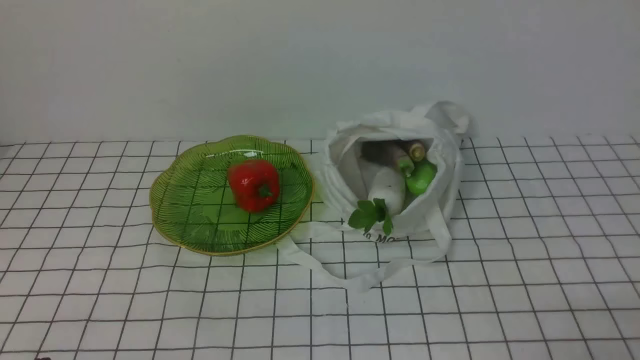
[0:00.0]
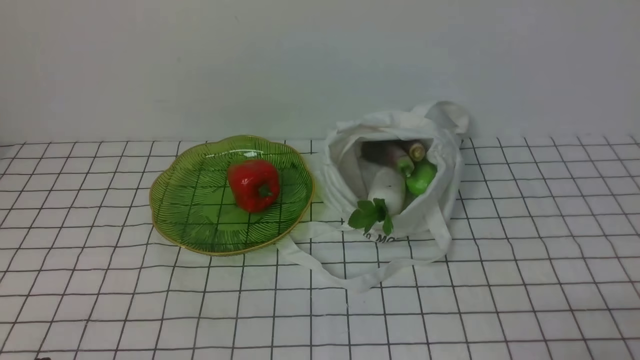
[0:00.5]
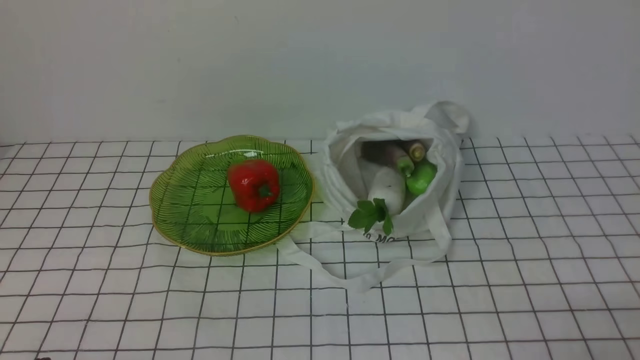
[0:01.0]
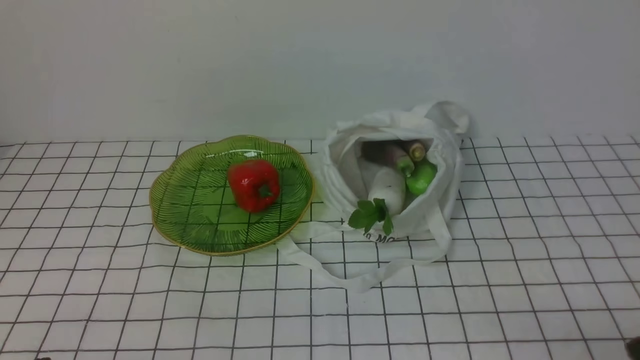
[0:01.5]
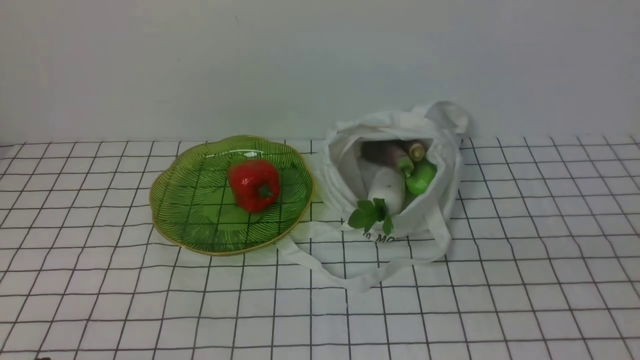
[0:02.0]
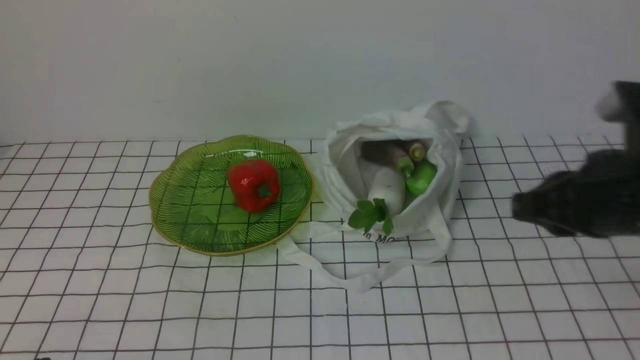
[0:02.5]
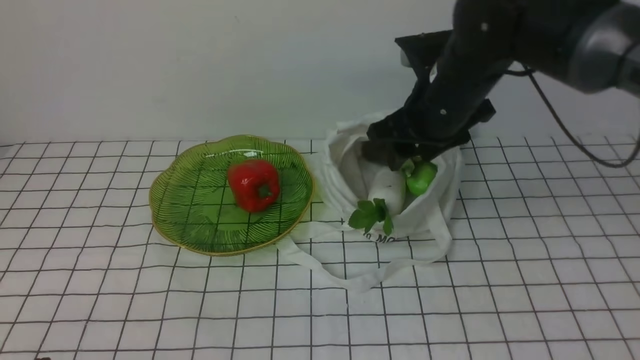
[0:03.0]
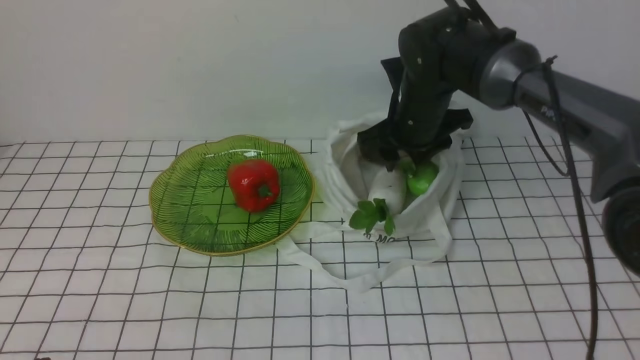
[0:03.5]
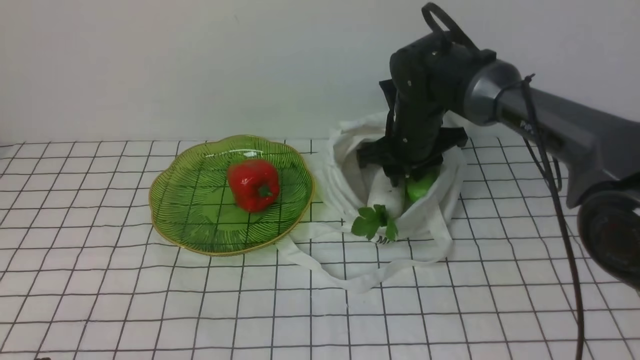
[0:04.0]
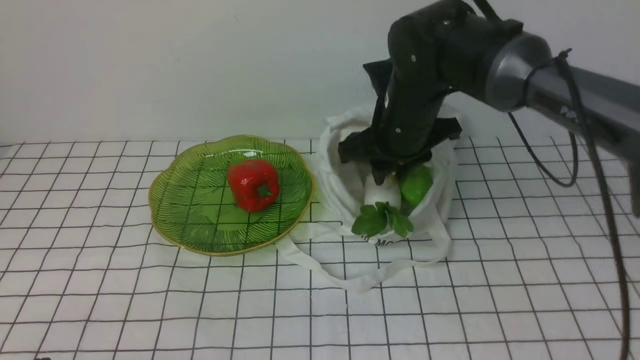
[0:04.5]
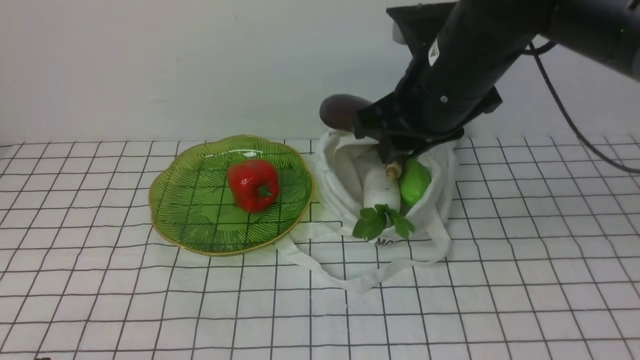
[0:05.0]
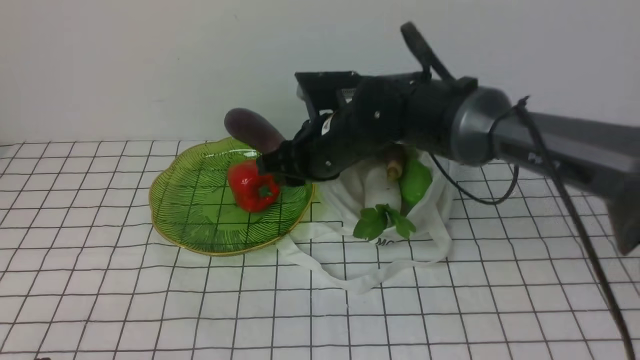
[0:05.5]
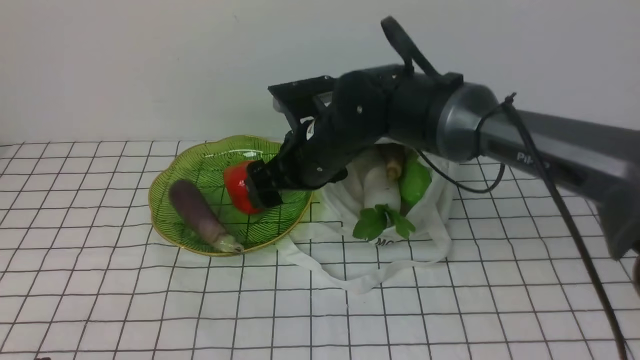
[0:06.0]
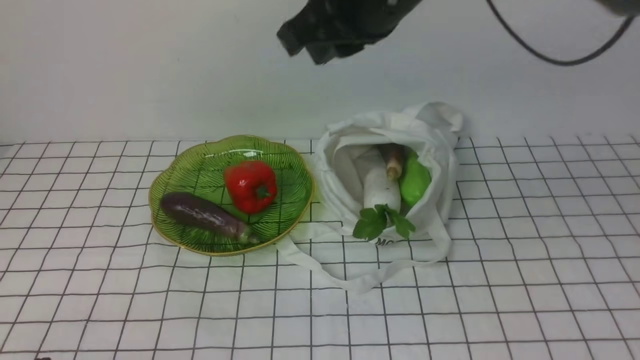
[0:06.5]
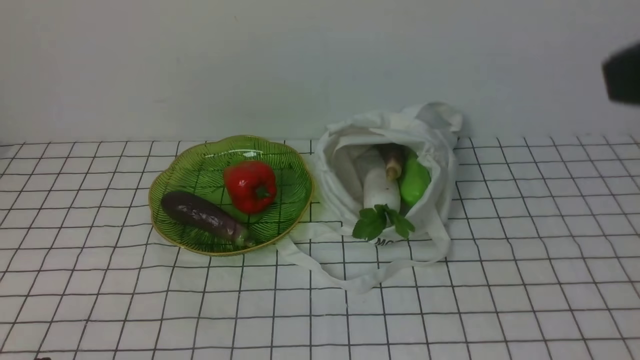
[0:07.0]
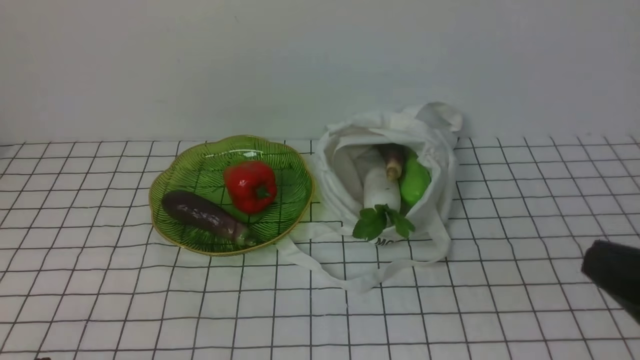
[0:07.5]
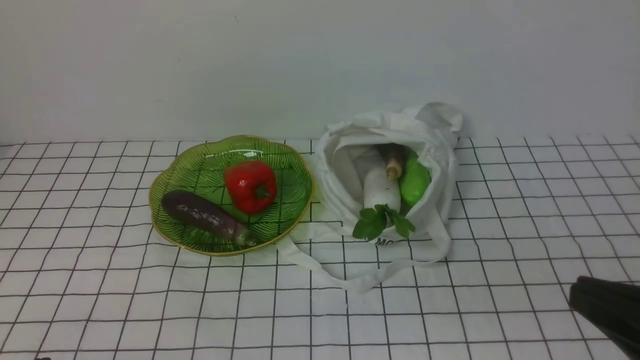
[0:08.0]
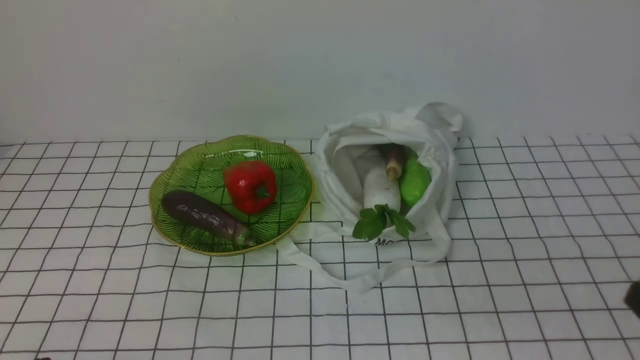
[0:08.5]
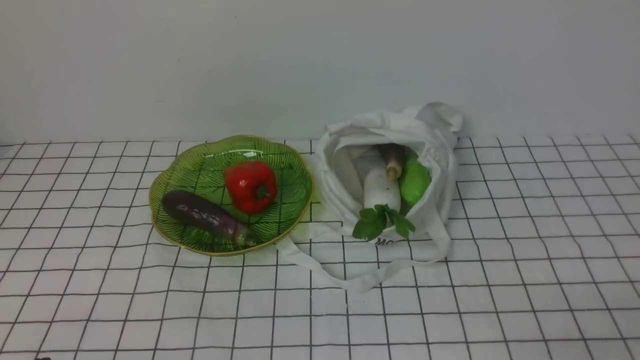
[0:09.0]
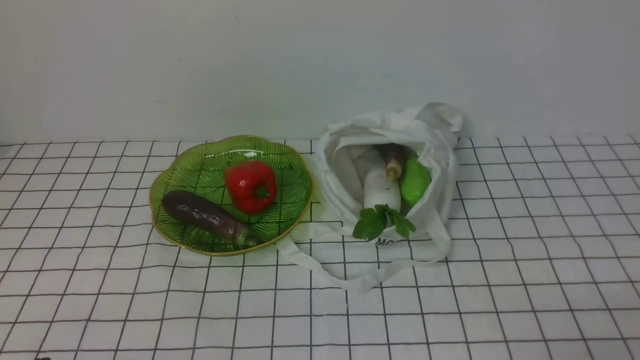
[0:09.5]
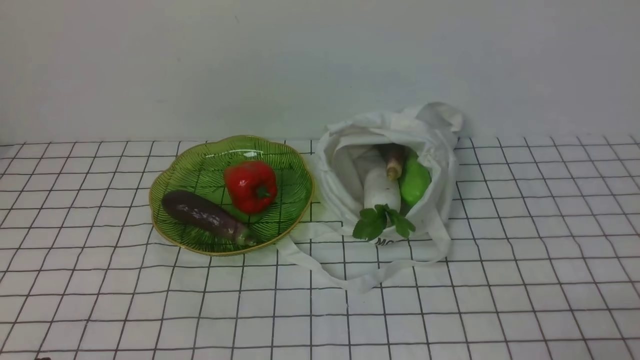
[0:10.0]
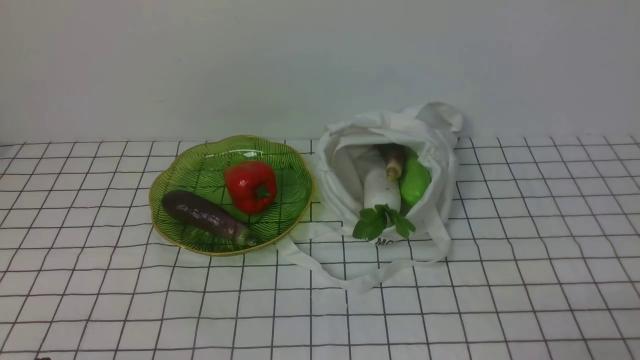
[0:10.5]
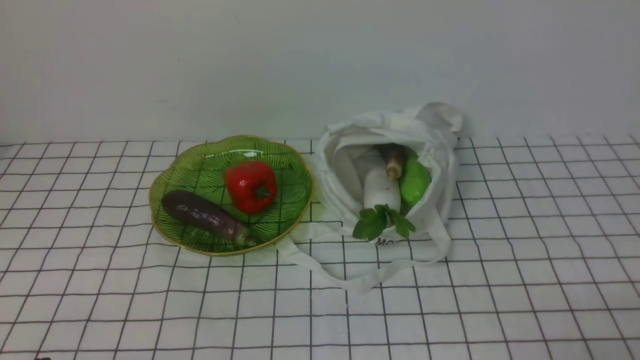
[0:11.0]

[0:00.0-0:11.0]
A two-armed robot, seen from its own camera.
Task of the whole recording: take vegetables from bag on white checkered tablecloth place on plate.
Step, 0:00.0 to 0:04.0: Grasp the eggplant with right gripper.
Step, 0:04.5 to 0:06.0: Place the eggplant on the plate with right gripper.
0:02.0 to 0:03.5: The right gripper moves forward and to the left, roughly 40 cm, and opens.
0:03.5 to 0:05.5: The right gripper travels to the left and backward by roughly 10 cm, and reaches approximately 10 cm upward, then returns.
0:05.5 to 0:07.5: The right gripper shifts about 40 cm backward and to the right, and closes its fingers.
0:07.5 to 0:09.0: The right gripper heads downward and to the right, covering some 15 cm.

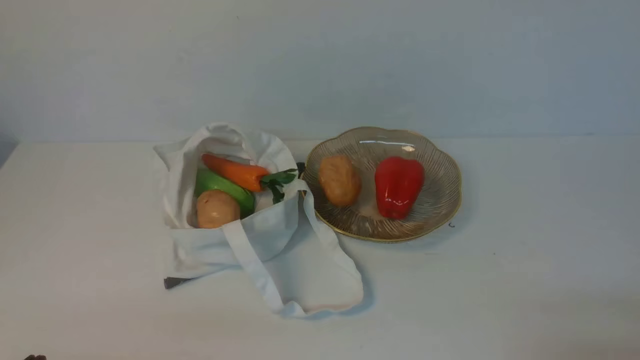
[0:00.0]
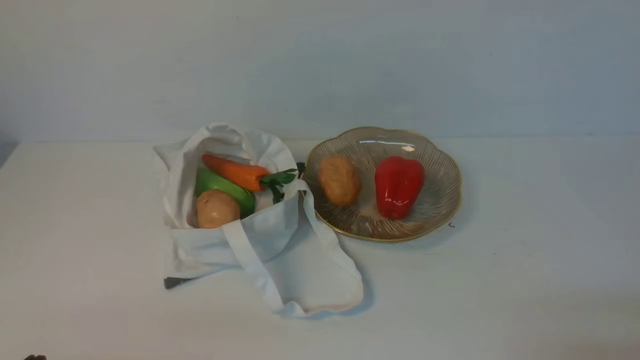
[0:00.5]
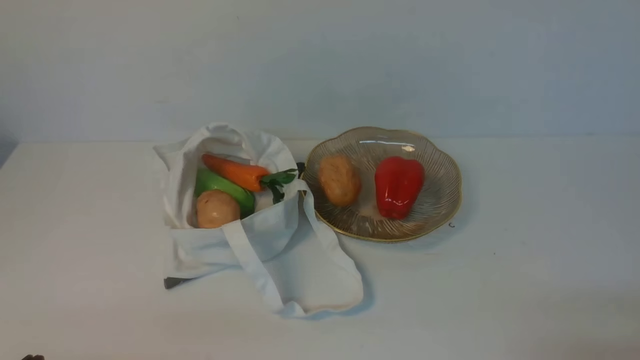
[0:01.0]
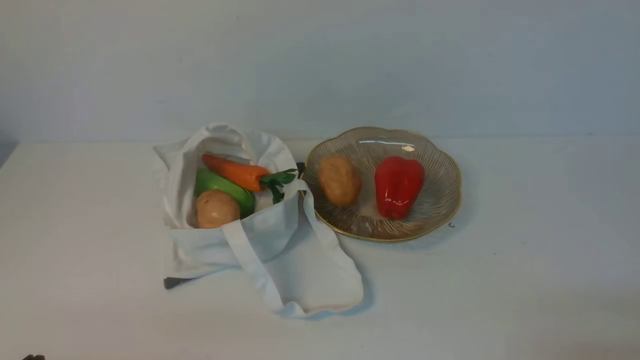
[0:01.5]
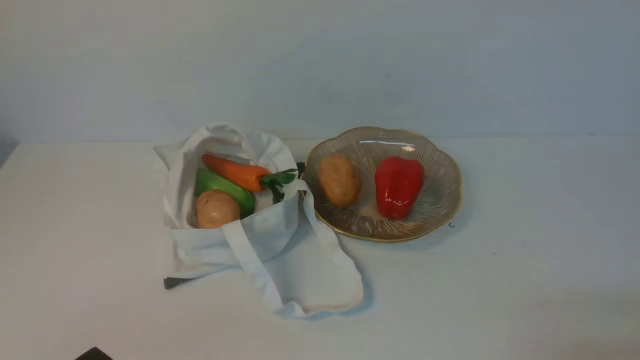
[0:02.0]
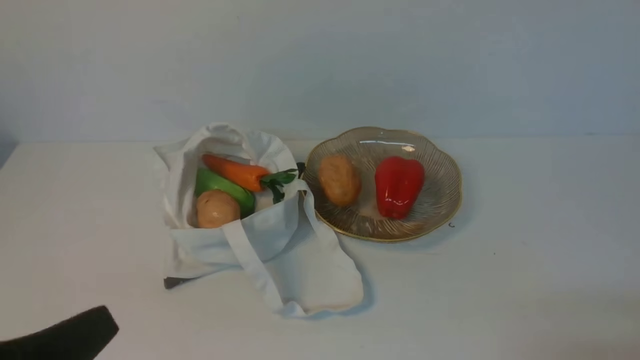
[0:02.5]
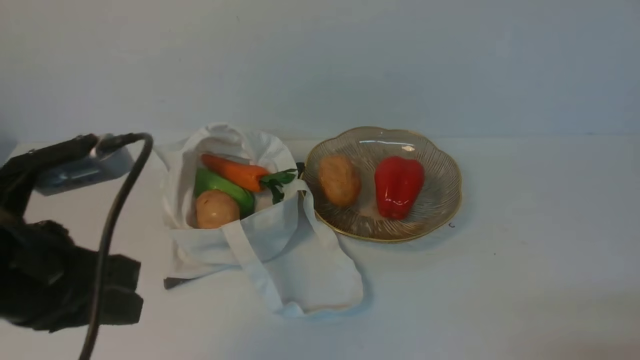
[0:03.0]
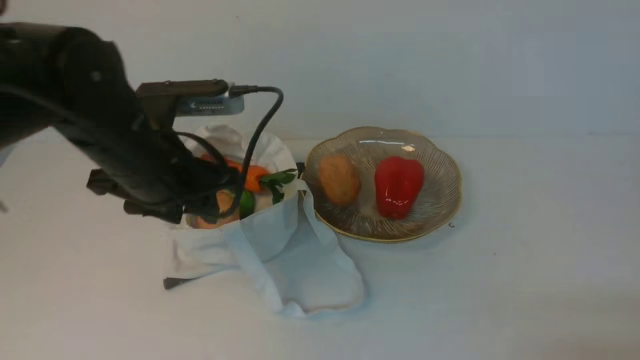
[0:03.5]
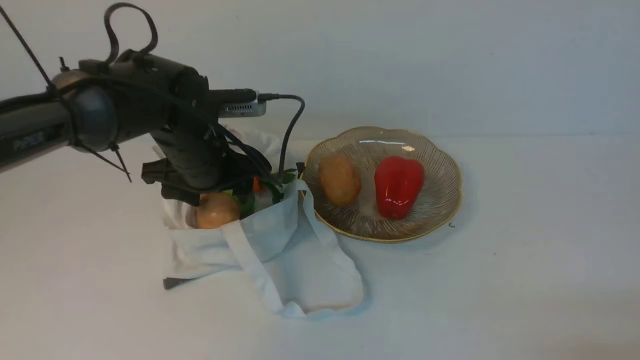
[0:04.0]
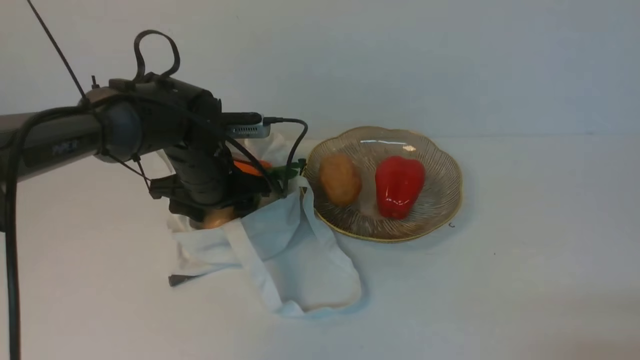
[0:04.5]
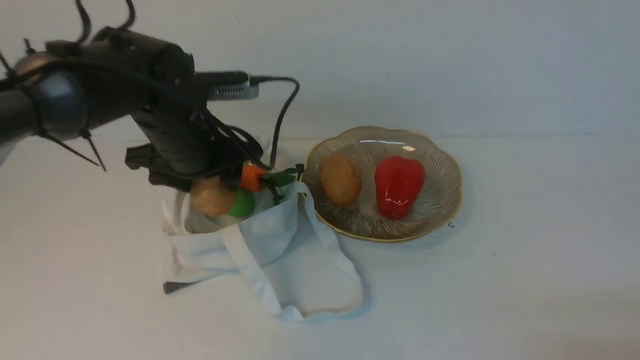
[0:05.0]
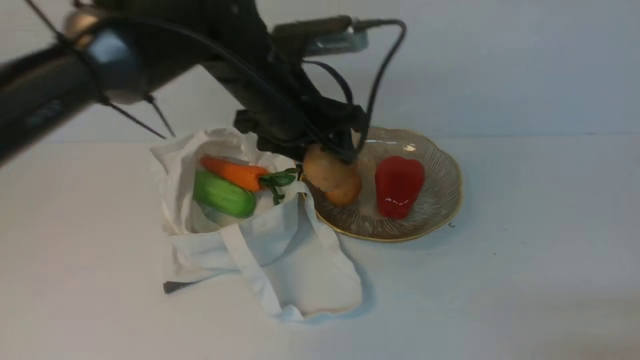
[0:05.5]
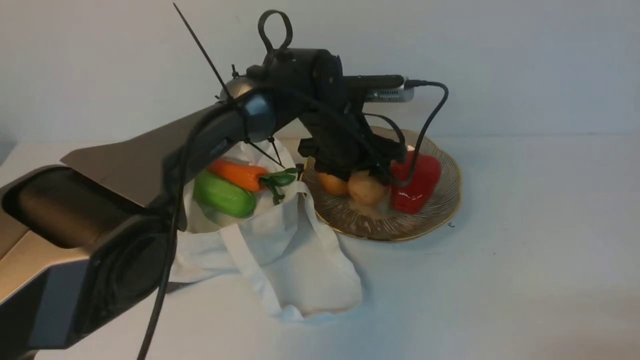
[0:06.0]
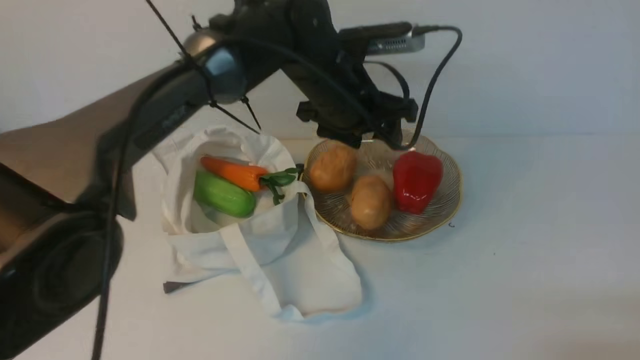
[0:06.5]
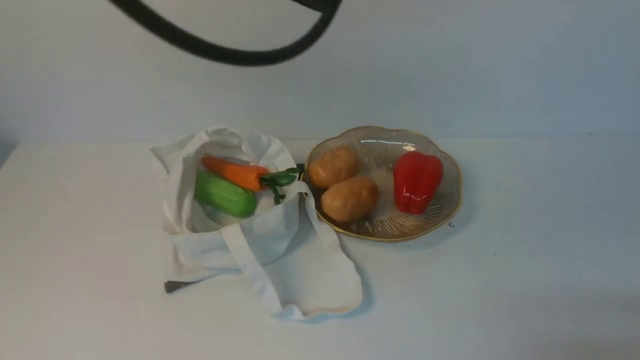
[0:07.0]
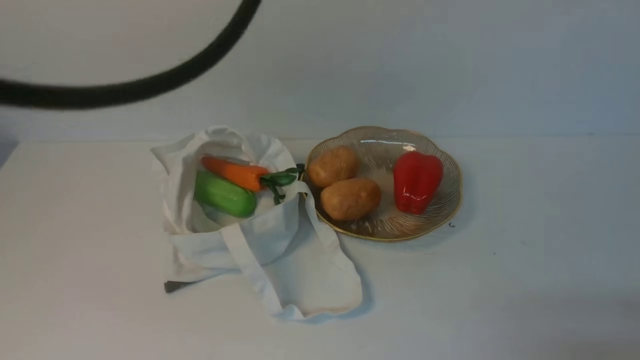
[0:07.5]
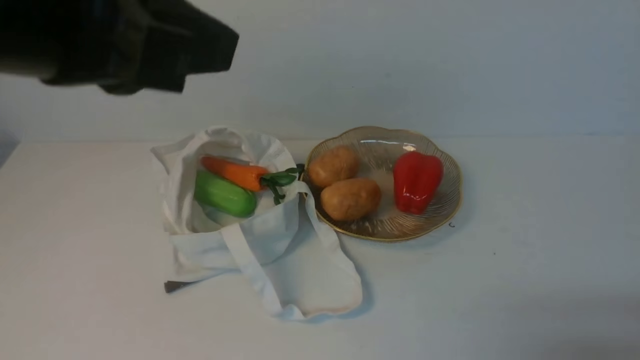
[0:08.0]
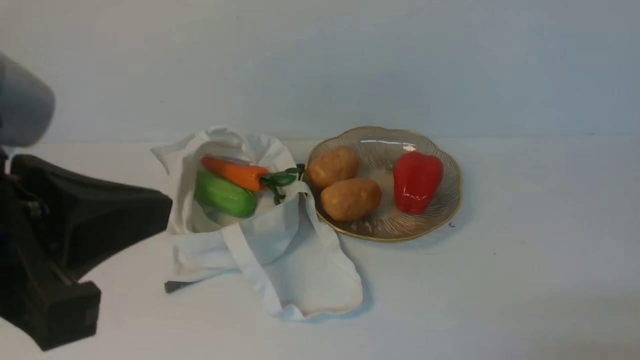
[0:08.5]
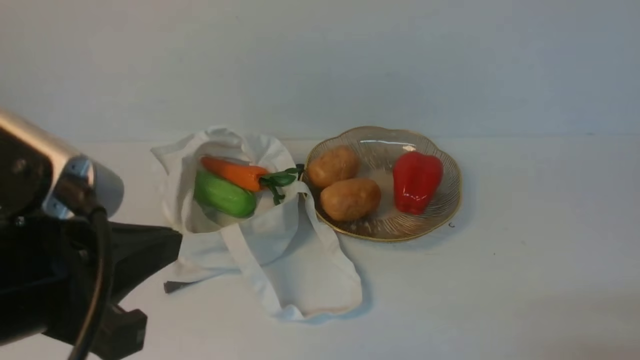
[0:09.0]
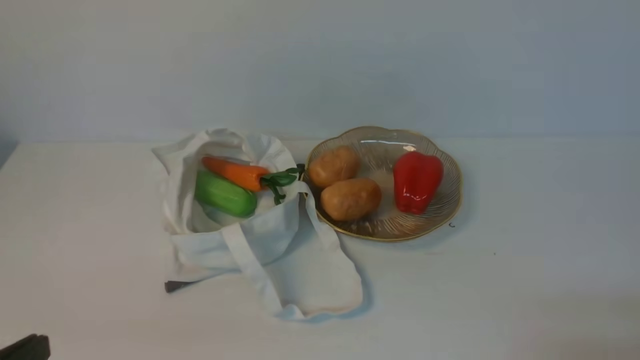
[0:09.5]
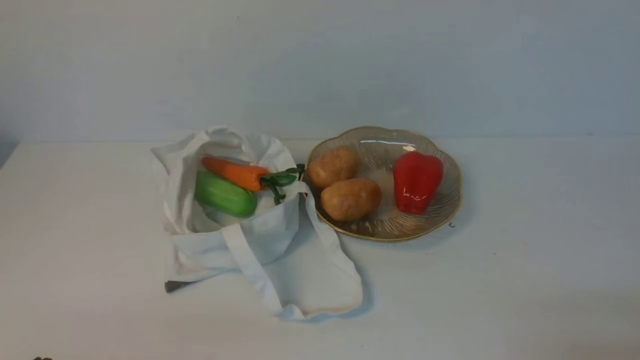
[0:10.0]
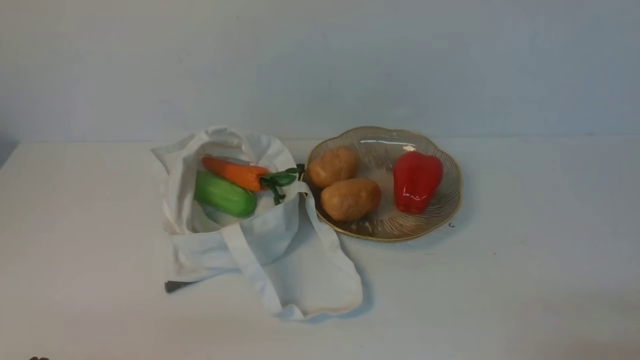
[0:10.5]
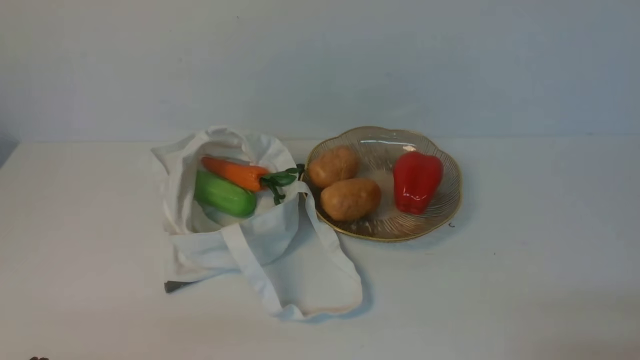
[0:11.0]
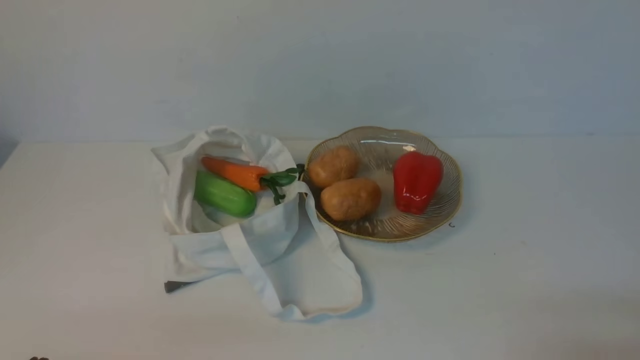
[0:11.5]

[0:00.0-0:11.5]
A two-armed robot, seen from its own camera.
Task of the whole recording: take vegetables from cloth bag on white table place on plate.
Step, 0:00.0 to 0:04.5: Grasp the potato with left gripper.
Step, 0:05.0 to 0:06.0: Place the potato on the plate with left gripper.
0:02.0 to 0:04.0: The left gripper moves forward, some 35 cm, and opens up.
0:04.0 to 0:06.0: The left gripper shifts roughly 15 cm to the right.
0:06.0 to 0:07.5: The left gripper is displaced upward and backward by approximately 35 cm, and closes its fingers.
0:07.5 to 0:09.5: The left gripper goes approximately 35 cm downward, backward and to the left.
